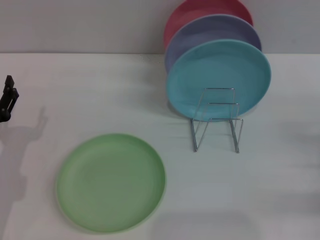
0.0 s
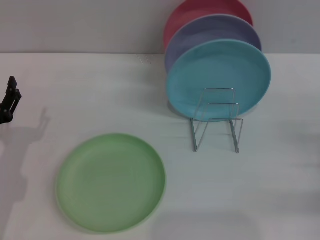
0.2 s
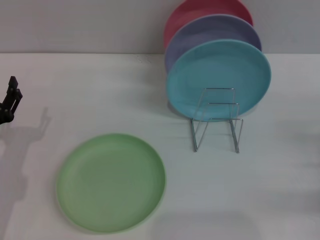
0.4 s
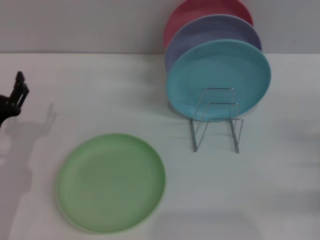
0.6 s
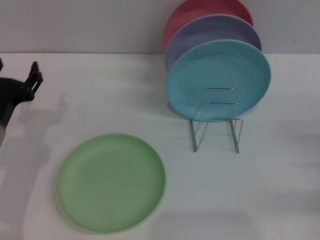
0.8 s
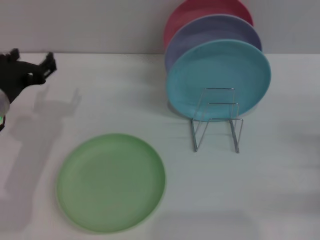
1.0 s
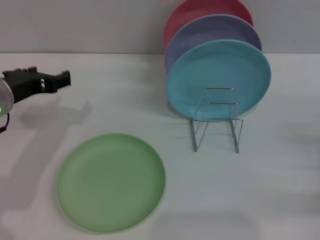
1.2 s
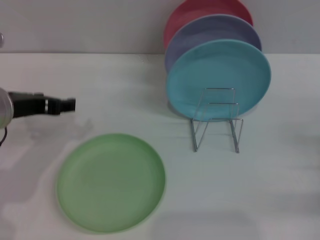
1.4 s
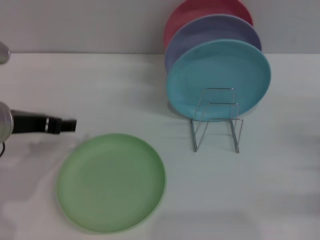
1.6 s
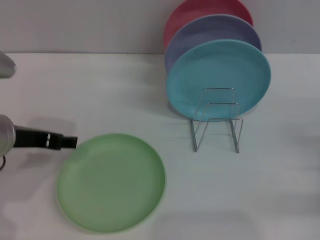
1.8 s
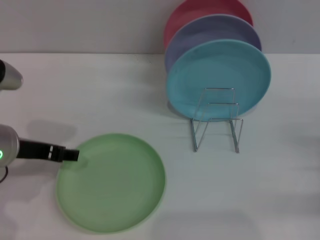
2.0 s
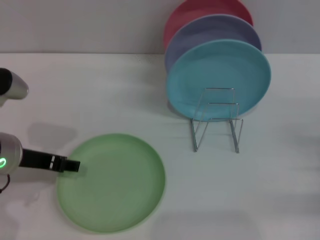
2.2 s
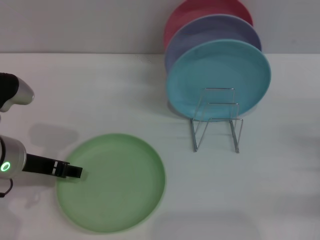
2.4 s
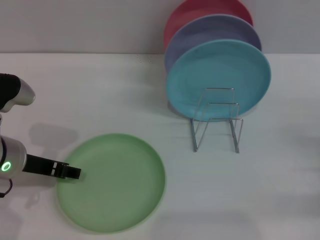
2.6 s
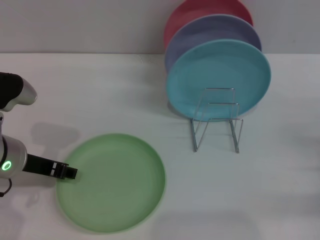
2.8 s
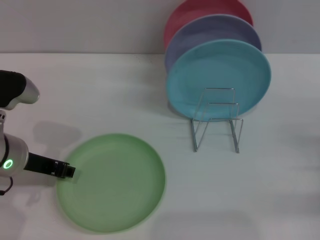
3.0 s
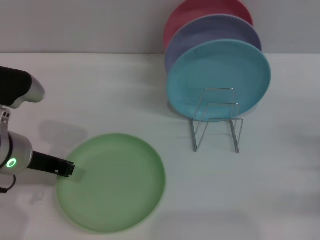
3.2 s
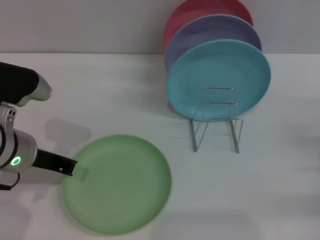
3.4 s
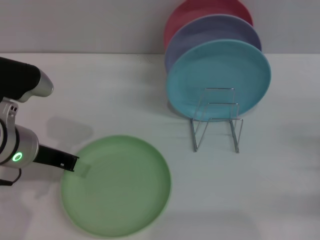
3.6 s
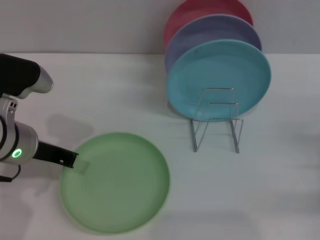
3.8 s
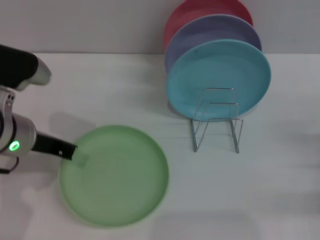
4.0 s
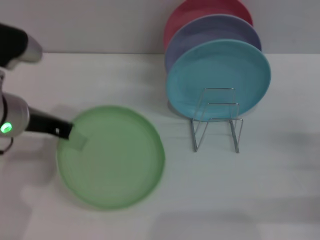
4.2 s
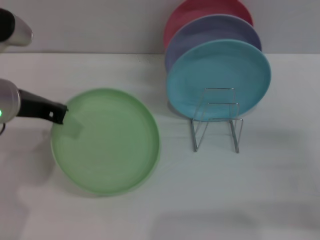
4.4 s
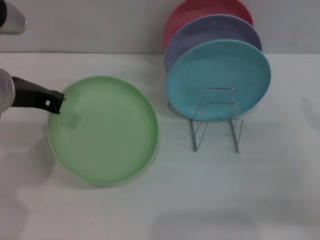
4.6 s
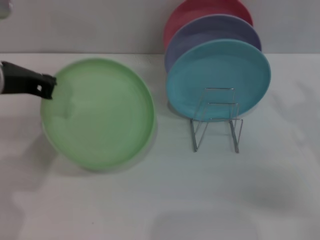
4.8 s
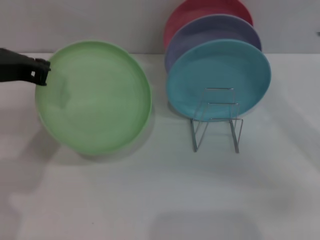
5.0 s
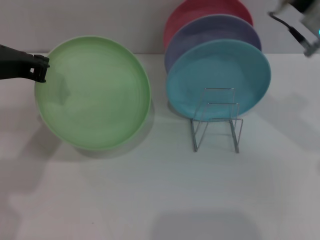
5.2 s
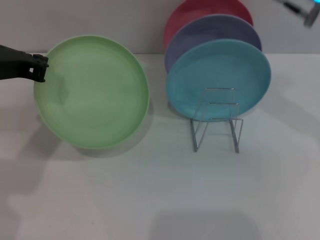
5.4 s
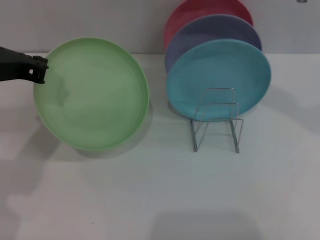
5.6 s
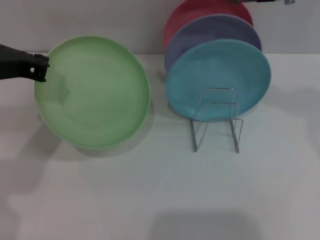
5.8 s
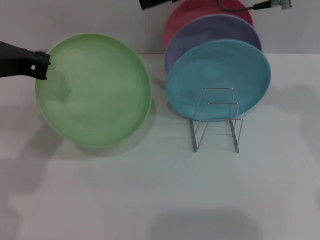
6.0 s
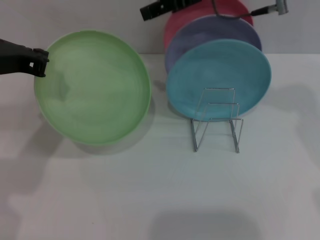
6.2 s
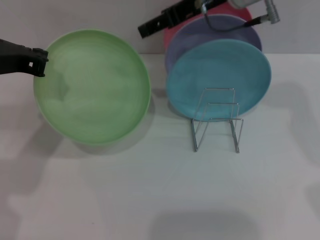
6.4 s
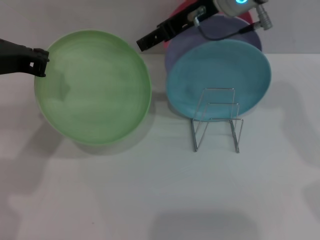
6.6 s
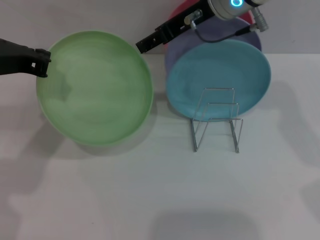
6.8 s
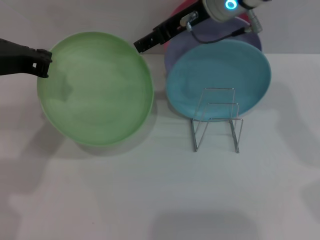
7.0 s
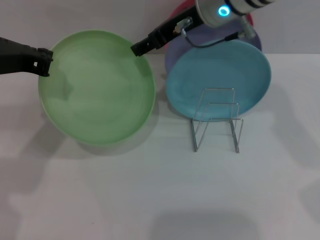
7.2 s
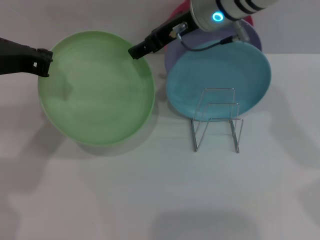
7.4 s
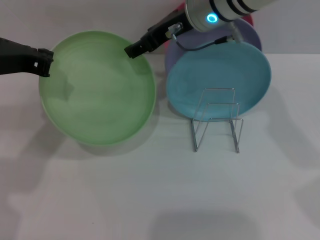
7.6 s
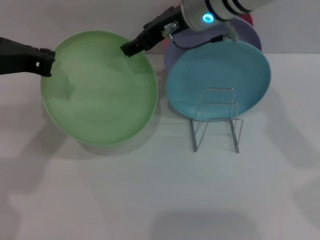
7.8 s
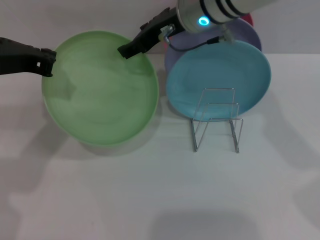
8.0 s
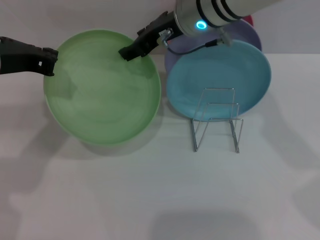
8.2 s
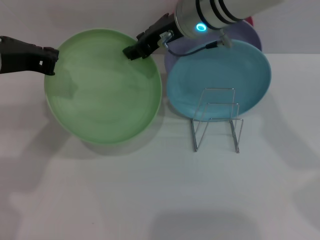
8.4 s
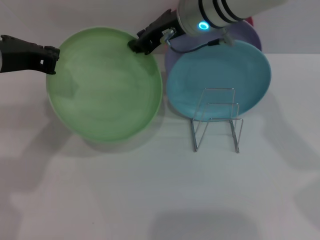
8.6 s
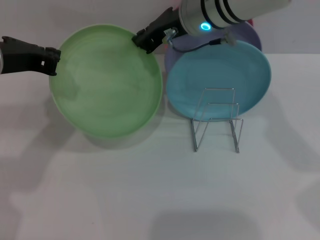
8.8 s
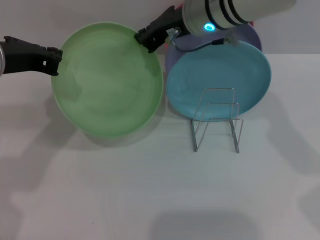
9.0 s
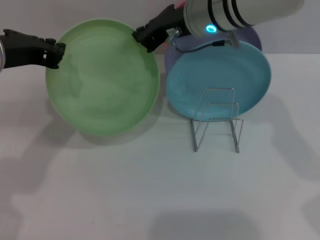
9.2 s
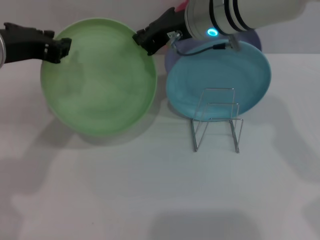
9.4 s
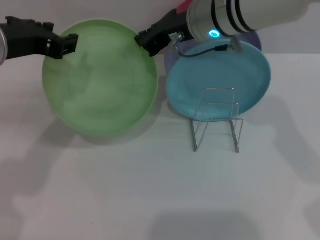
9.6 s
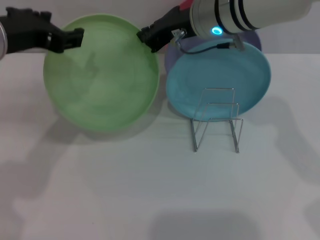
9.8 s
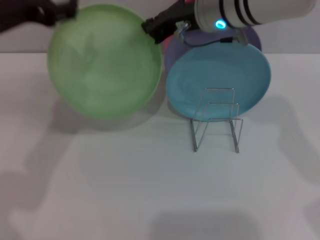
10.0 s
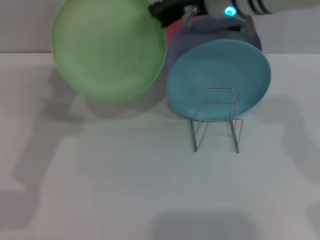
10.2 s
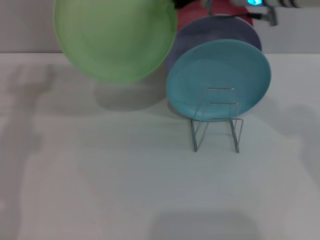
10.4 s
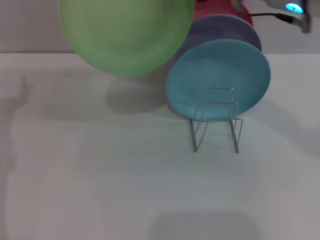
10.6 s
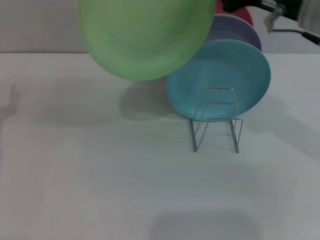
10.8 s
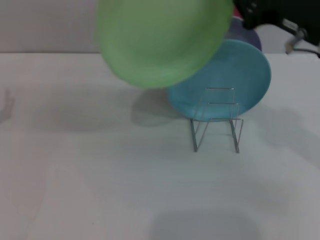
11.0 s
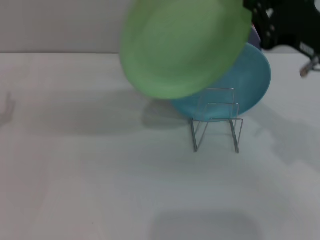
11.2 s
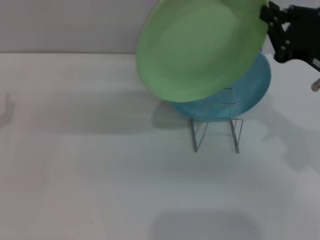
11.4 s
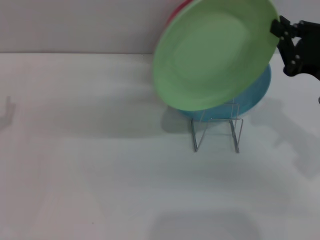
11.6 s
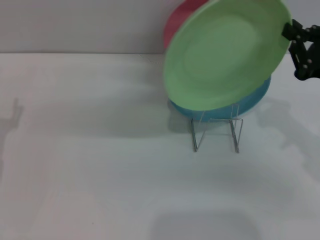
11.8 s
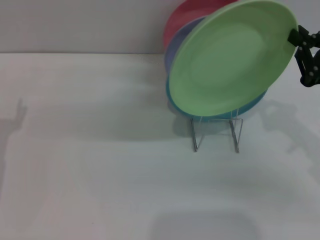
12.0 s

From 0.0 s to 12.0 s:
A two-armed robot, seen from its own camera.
Task of the whole recording: Grip the plate with one hand, pass it to the other, then set it on the shelf.
Step, from 0.0 s to 4.2 s: Pick up the plate with the left gripper.
Step, from 4.6 s to 10.0 s: Pass the plate from the left gripper to the right gripper.
From 0.0 s to 1.6 s: The left gripper travels upward and to the right by approximately 15 cm.
From 1.6 s to 3.0 s: The grippers stay close to where they were, moving slightly.
From 3.0 s to 4.4 s: The right gripper moves about 5 cm, while the left gripper travels upward by some 5 cm, and closes up.
From 4.4 s to 6.0 s: The right gripper is displaced upward, to the left and forward by approximately 35 cm.
From 6.0 s to 7.6 s: The right gripper shifts about 10 cm downward and to the left.
From 7.6 s to 9.0 s: The right gripper closes up.
From 9.0 s to 10.4 s: The right gripper heads to the right, covering roughly 5 cm. The left gripper heads to the left, covering roughly 5 cm, and opens its fingers.
From 10.4 s to 12.0 s: The right gripper heads to the right, backward and downward, covering approximately 25 cm, while the left gripper moves downward, about 15 cm.

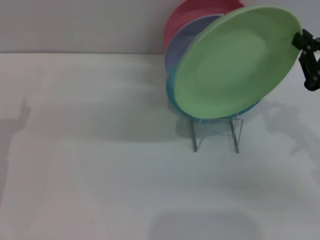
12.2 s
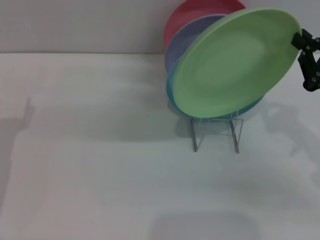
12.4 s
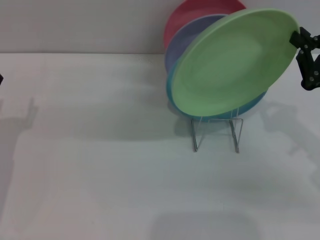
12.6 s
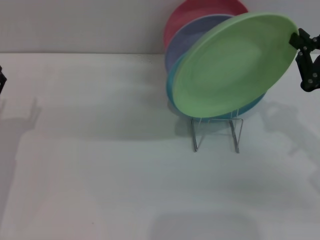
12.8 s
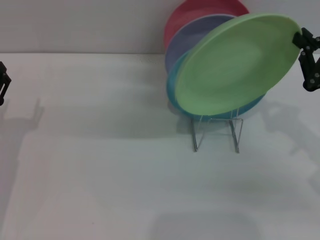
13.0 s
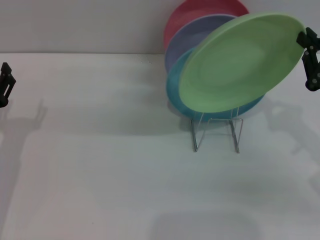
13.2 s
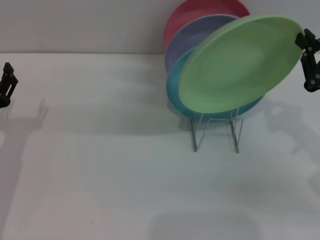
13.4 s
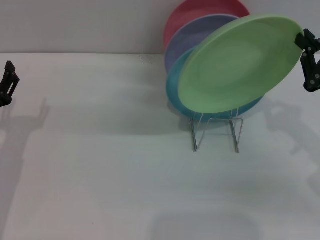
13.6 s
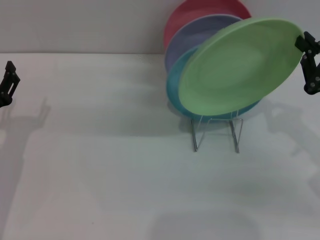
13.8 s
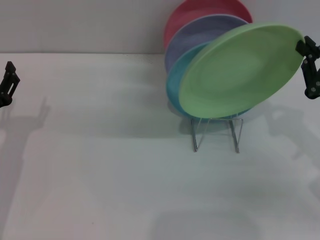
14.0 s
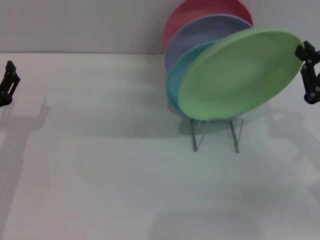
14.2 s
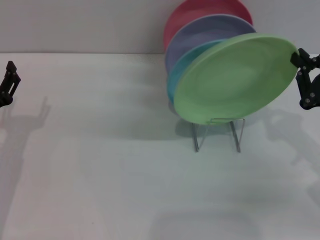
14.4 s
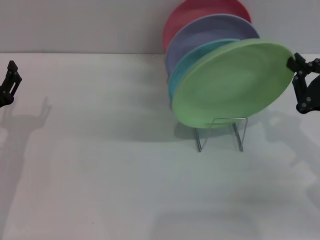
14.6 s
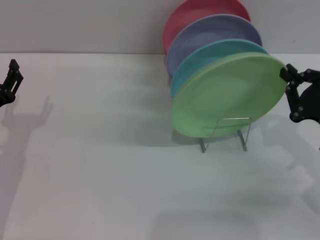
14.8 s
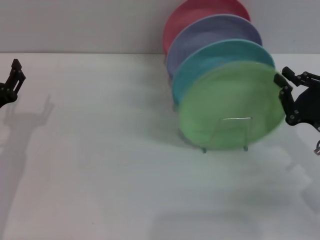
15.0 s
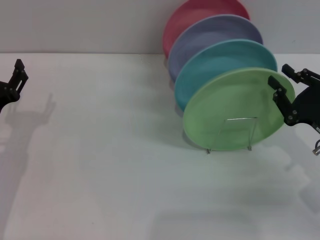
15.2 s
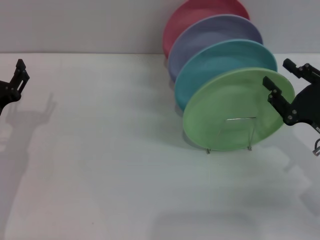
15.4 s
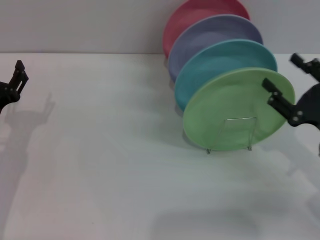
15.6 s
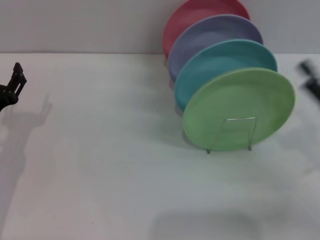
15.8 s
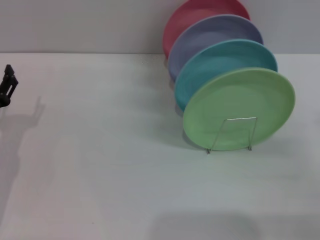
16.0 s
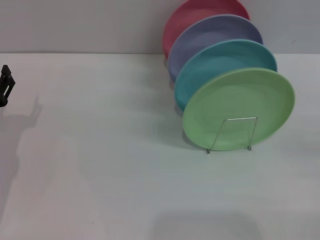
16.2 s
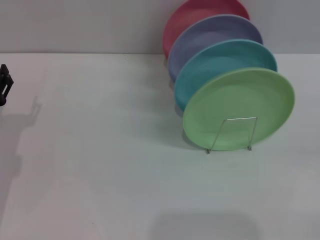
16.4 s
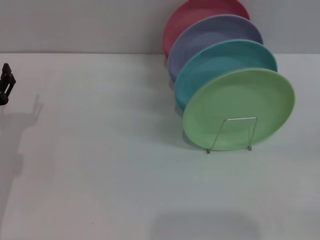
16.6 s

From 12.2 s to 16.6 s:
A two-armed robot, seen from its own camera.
Task of the whole recording: Grip the plate with one hand, pass it to the other, then set it on the shelf.
Step, from 12.2 s to 15.4 s: Place the plate on the shelf with the right gripper.
From 12.2 s to 13.6 s: The grippers make only small movements.
From 13.6 s to 15.2 s: The right gripper shifts approximately 5 cm downward.
From 15.2 s to 16.6 s: The right gripper moves to the right and backward, approximately 10 cm, and opens its fingers.

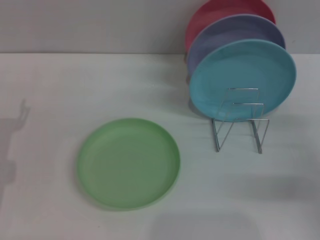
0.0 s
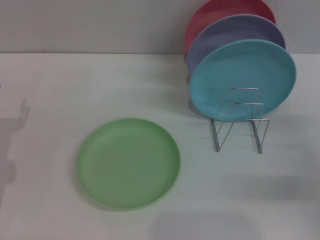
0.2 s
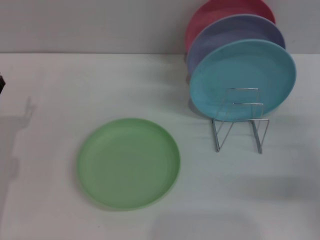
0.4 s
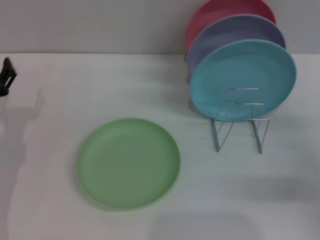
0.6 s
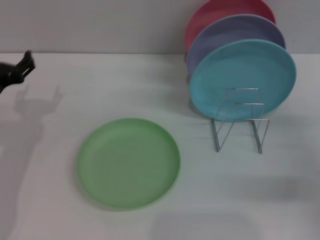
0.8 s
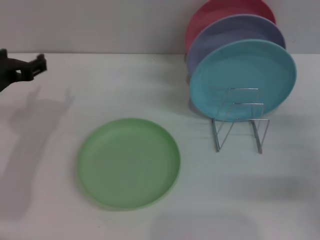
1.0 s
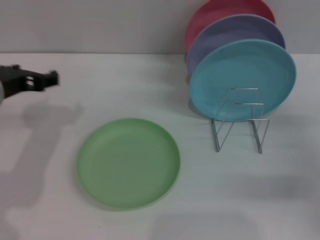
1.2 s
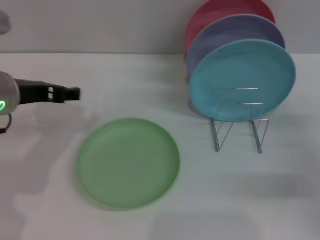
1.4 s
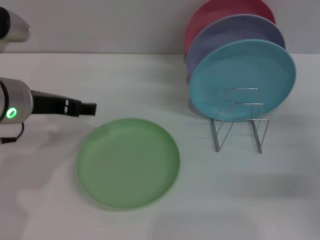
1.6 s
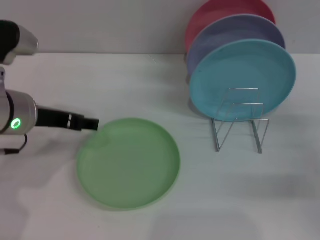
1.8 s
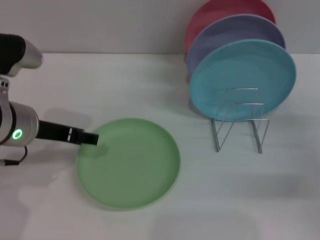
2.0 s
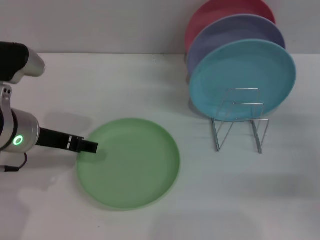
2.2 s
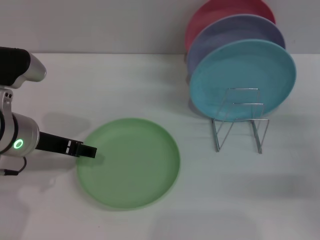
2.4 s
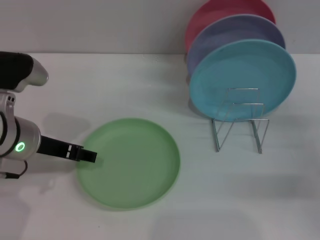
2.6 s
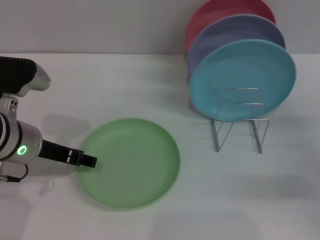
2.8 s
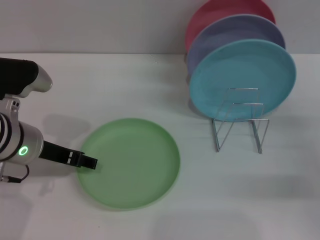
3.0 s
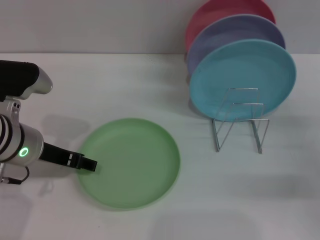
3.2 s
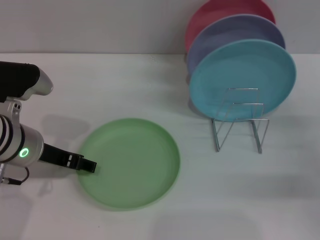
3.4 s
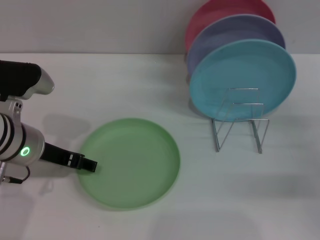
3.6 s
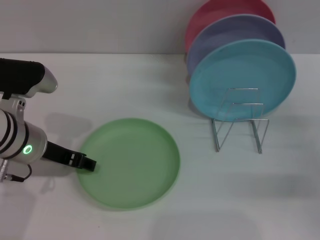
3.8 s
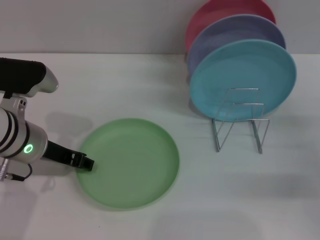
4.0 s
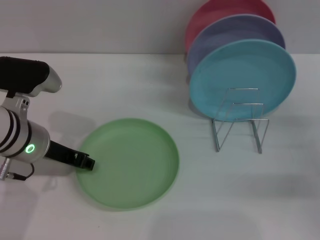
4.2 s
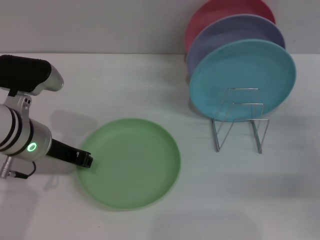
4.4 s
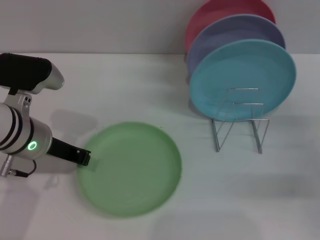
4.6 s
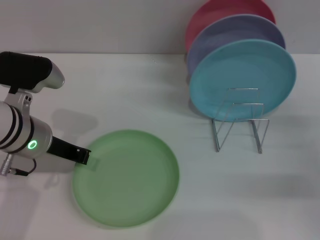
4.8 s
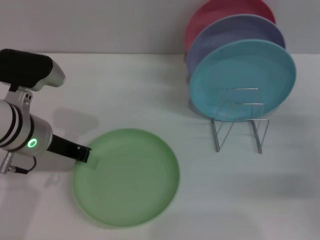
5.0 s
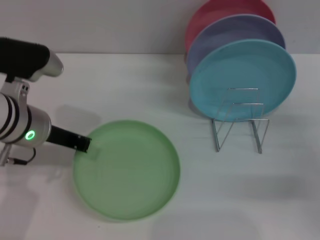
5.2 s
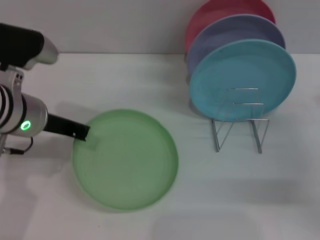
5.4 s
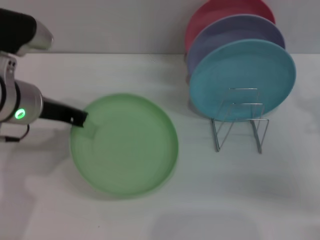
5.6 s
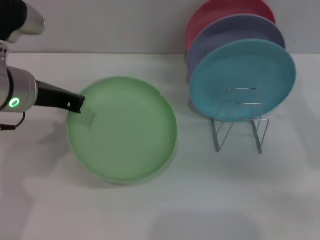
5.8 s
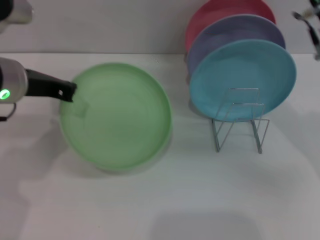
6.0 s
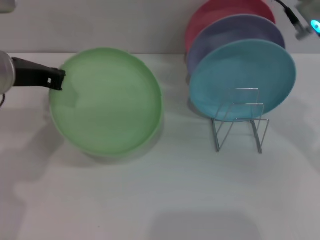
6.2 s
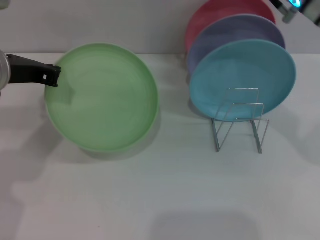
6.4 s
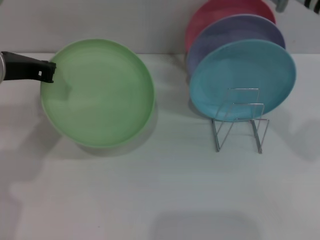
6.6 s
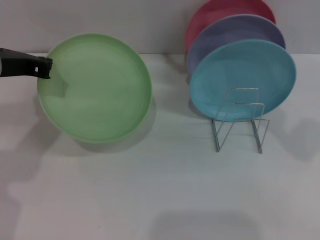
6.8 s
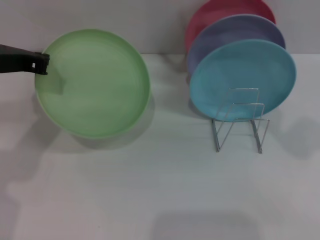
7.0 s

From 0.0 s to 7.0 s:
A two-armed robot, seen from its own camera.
Task of the whole recording: Grip the plate with one hand, pass it to the other, then set it on the shelf.
Step, from 0.0 s to 6.0 s: Pick up the plate with the left gripper.
From 0.0 s to 1.4 s: The left gripper moves upward and to the right, some 15 cm.
From 1.4 s to 2.8 s: The left gripper is displaced downward by approximately 5 cm.
From 2.8 s to 4.2 s: The grippers move only a little.
From 4.2 s to 5.6 s: The grippers both shift upward by approximately 5 cm. The left gripper closes.
From 5.6 s to 7.0 s: The left gripper moves some 5 cm, while the right gripper shifts approximately 25 cm upward and to the left.
